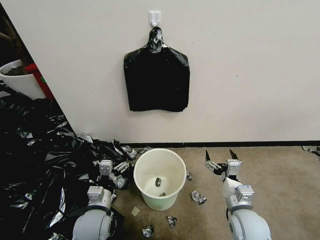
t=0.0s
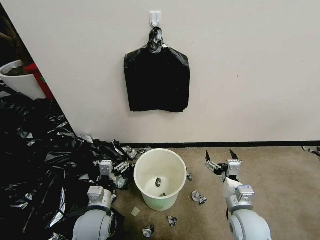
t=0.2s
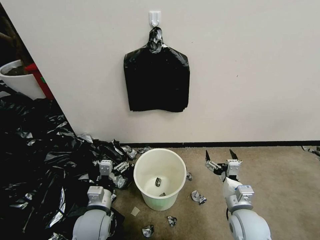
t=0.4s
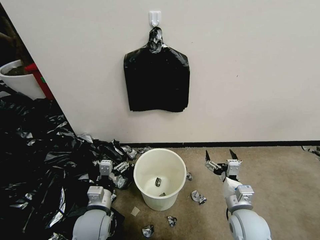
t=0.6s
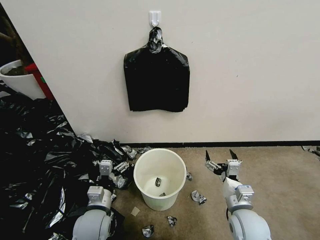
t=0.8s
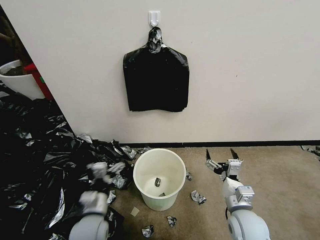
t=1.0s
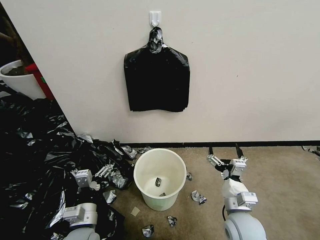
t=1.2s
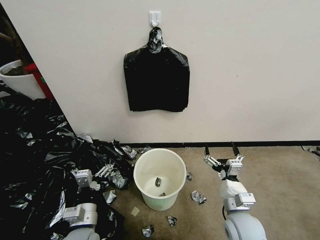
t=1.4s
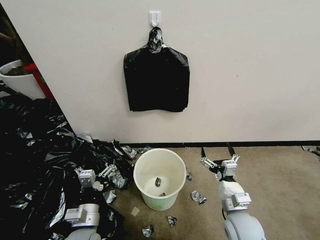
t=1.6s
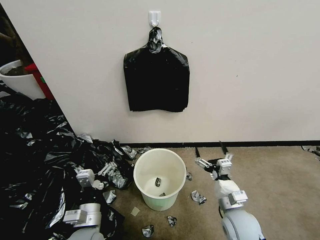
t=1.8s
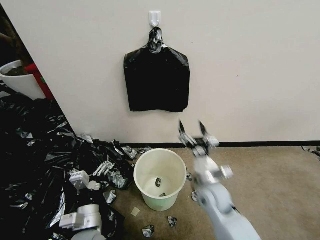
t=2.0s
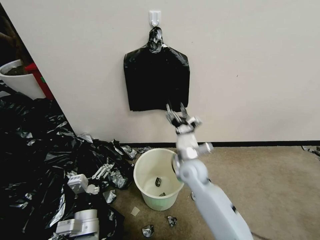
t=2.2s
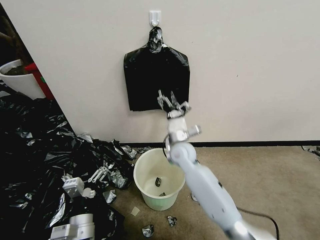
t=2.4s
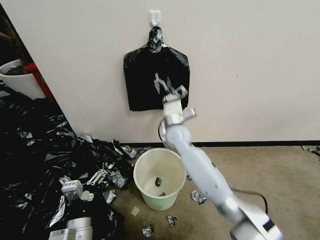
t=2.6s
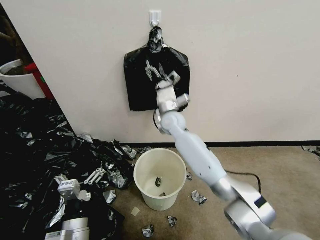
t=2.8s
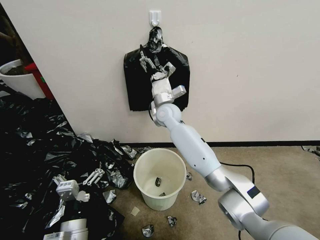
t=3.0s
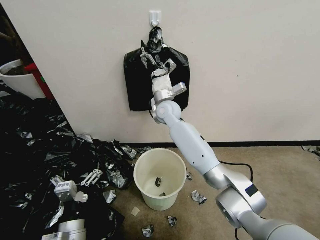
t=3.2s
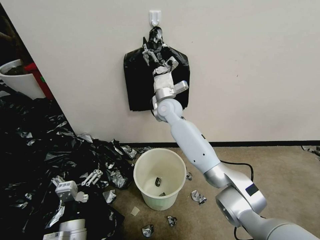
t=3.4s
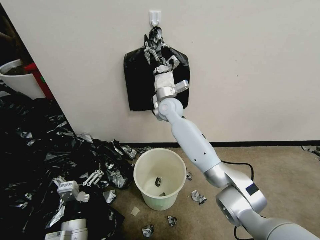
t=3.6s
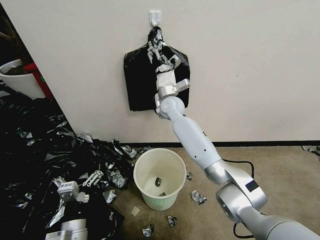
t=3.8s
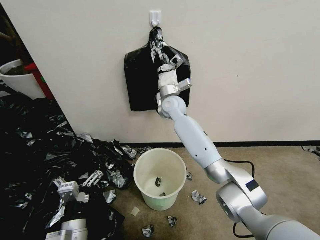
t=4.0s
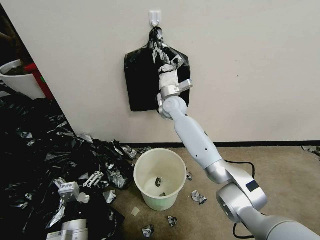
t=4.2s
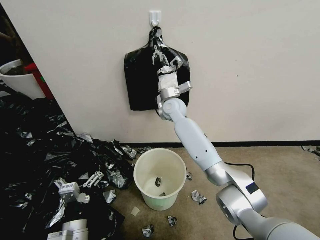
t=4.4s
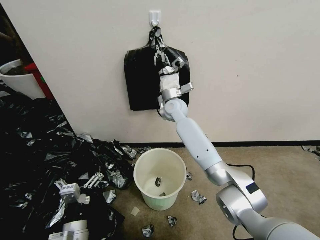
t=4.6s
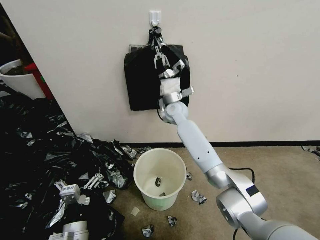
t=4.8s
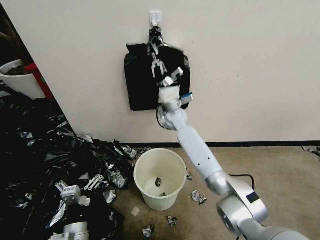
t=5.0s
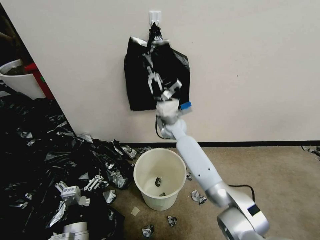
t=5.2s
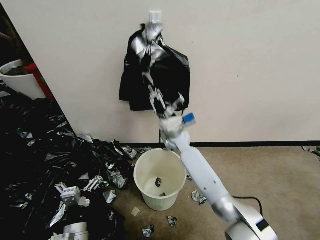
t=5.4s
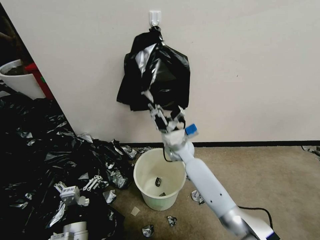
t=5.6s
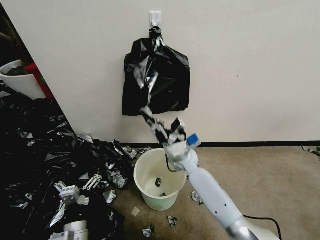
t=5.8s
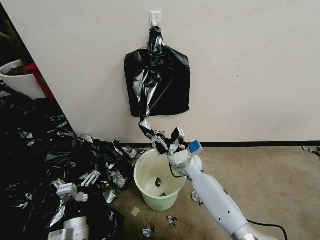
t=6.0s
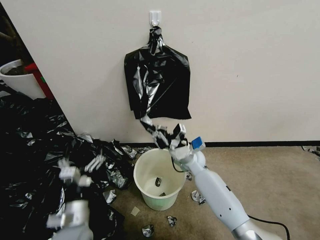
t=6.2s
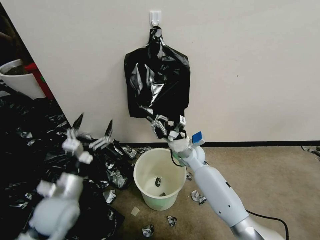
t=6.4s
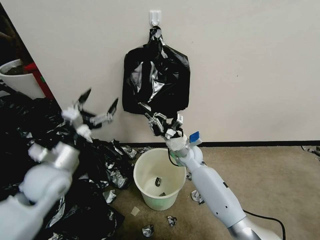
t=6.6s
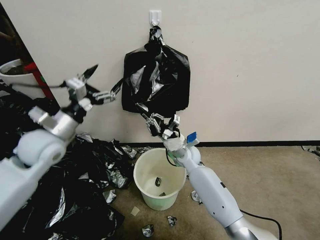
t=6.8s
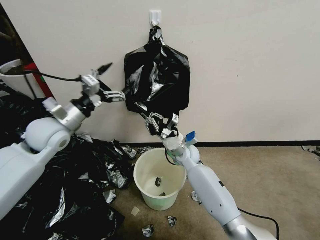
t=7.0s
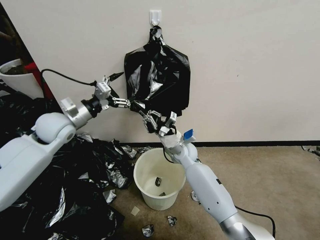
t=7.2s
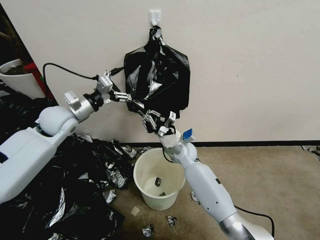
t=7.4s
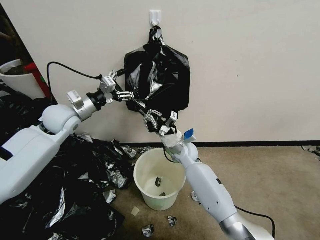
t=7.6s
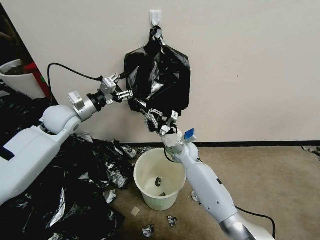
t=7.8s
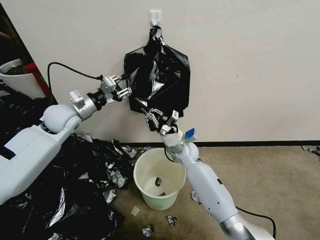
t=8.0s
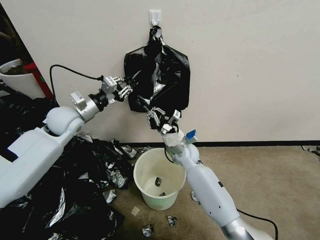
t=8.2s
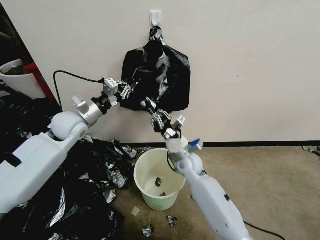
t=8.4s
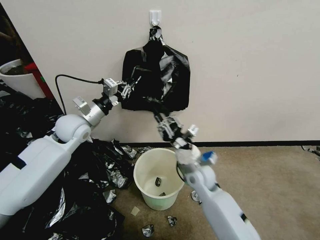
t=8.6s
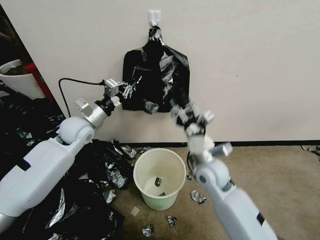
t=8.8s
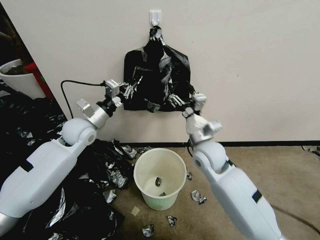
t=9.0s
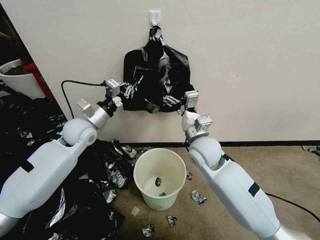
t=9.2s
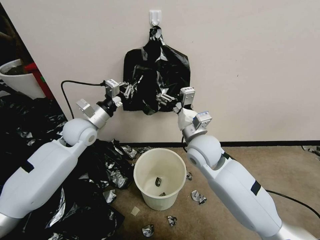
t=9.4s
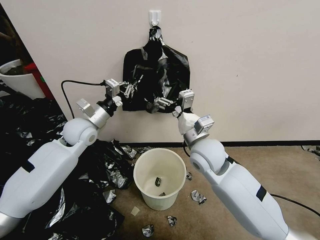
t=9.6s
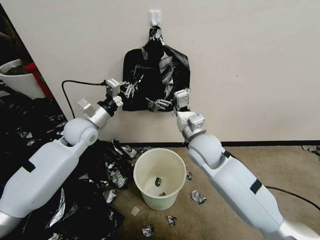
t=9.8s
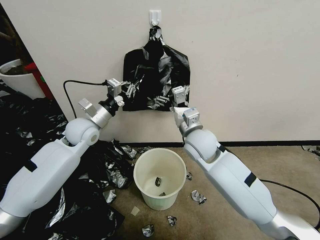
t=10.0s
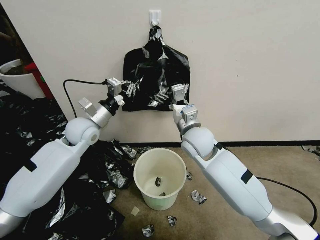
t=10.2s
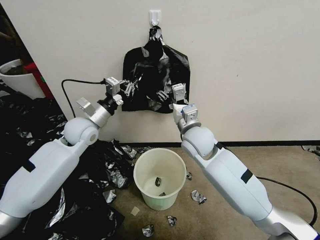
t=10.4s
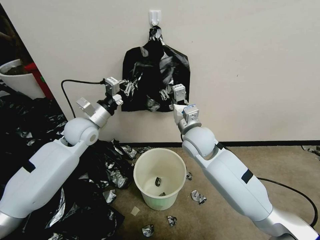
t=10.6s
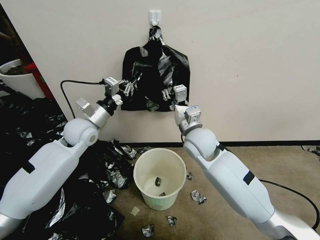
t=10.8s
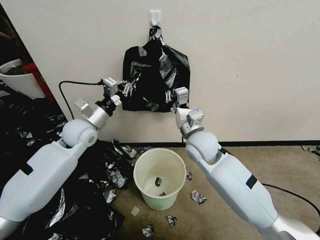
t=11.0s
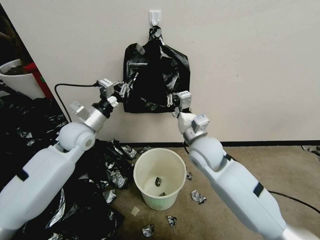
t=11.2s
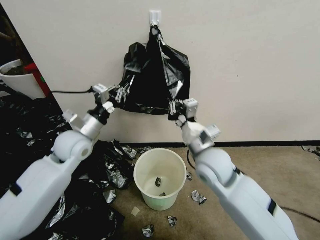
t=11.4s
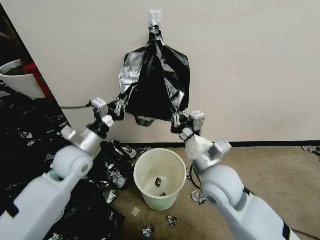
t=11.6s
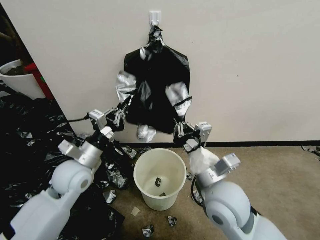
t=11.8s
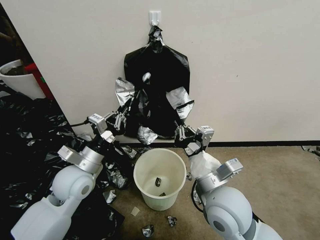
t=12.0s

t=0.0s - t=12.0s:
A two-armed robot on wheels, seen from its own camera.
Task of the whole recording: Place a trash bag onto the trash bin.
t=1.6s - t=3.0s: The left gripper changes place by about 5 cm. The right gripper goes approximately 40 cm forward, to the left and upward.
t=3.0s - t=4.4s: The right gripper closes its fingers.
t=4.4s - t=6.0s: The right gripper goes approximately 25 cm downward and backward.
t=6.0s - t=7.6s: The left gripper moves forward and upward, some 40 cm; the right gripper shifts by about 5 cm.
t=7.6s - t=9.0s: The left gripper changes place by about 5 cm, and closes its fingers; the right gripper heads upward, backward and to the right, covering about 15 cm, and opens up.
t=9.0s - t=10.4s: The right gripper ends up about 5 cm from where it was.
t=10.4s - t=12.0s: The grippers both shift backward by roughly 15 cm. The right gripper closes its fingers.

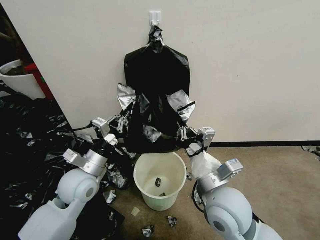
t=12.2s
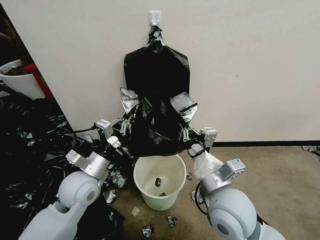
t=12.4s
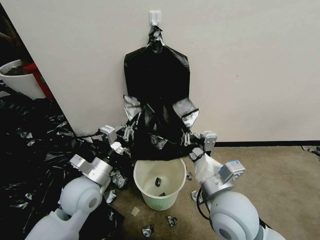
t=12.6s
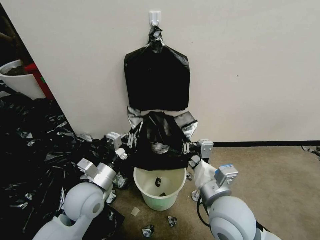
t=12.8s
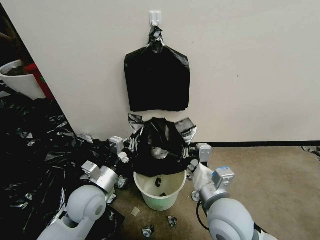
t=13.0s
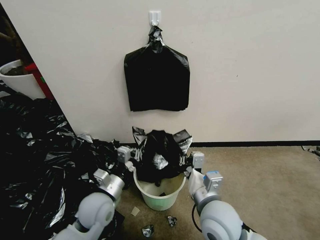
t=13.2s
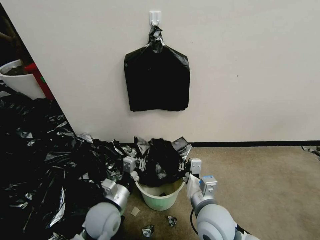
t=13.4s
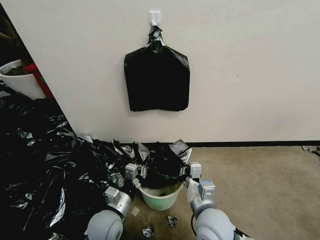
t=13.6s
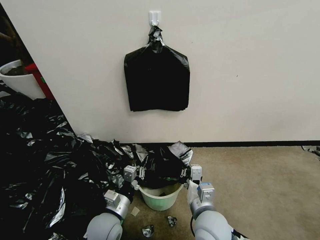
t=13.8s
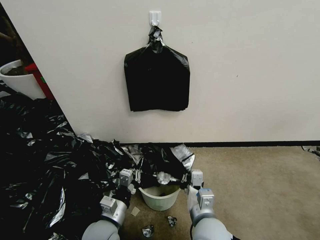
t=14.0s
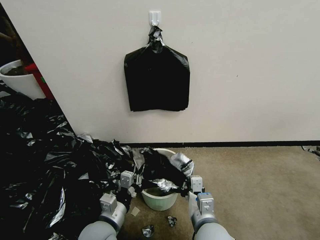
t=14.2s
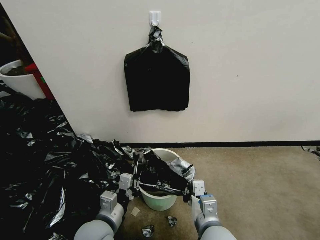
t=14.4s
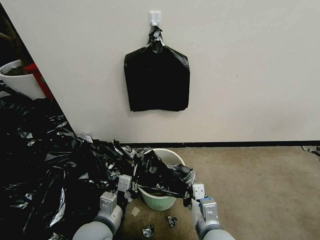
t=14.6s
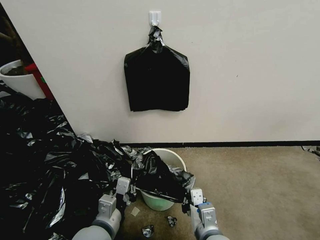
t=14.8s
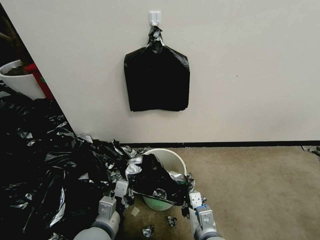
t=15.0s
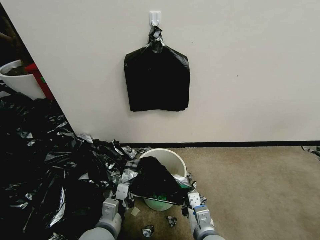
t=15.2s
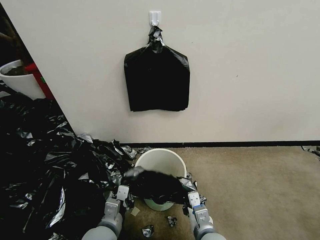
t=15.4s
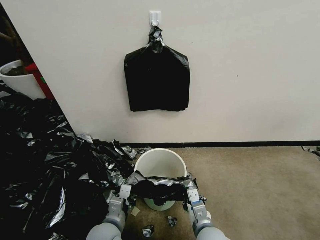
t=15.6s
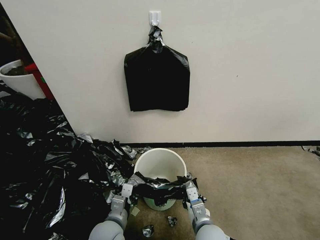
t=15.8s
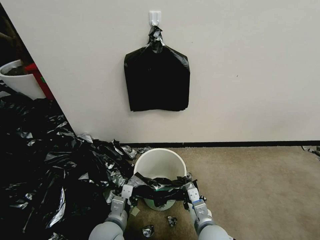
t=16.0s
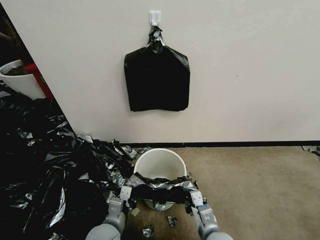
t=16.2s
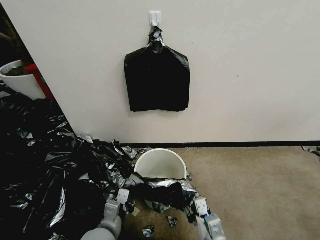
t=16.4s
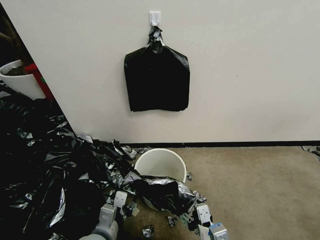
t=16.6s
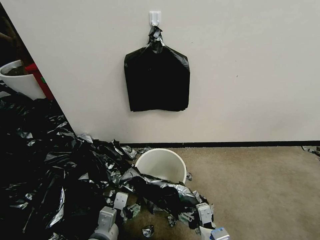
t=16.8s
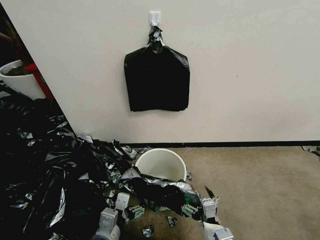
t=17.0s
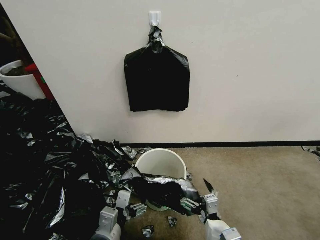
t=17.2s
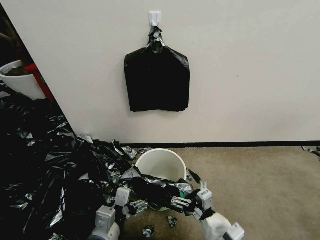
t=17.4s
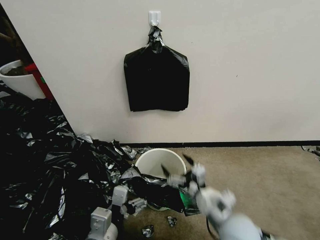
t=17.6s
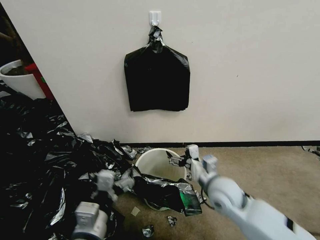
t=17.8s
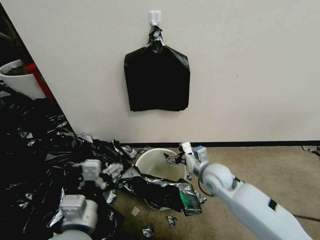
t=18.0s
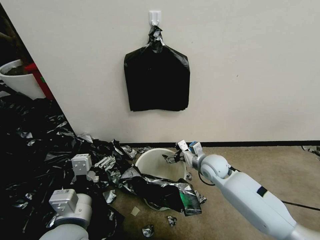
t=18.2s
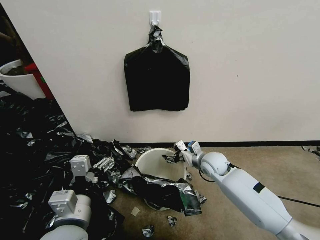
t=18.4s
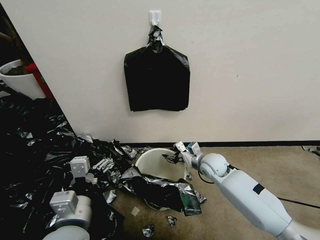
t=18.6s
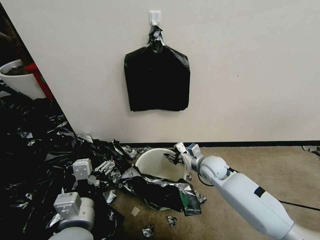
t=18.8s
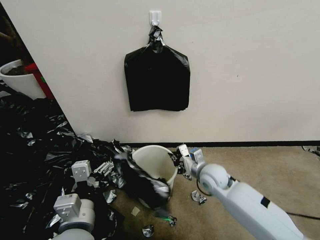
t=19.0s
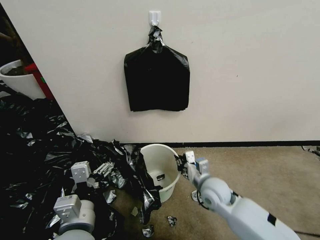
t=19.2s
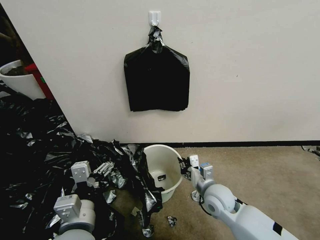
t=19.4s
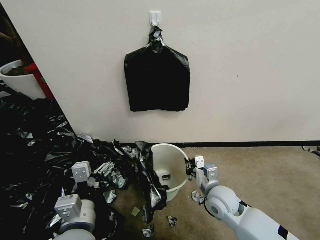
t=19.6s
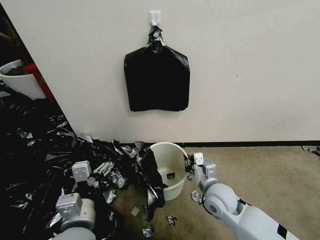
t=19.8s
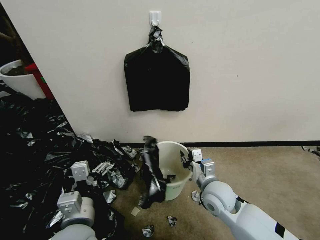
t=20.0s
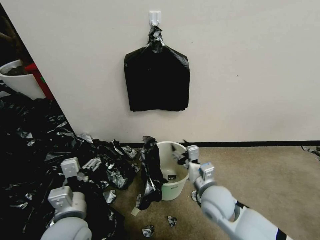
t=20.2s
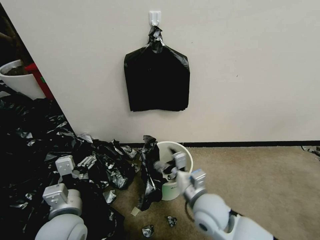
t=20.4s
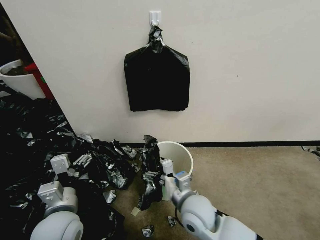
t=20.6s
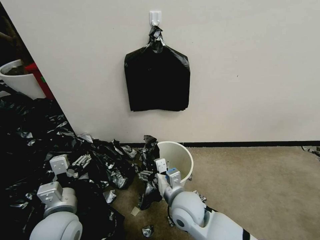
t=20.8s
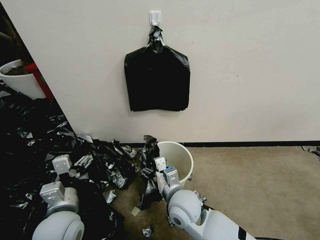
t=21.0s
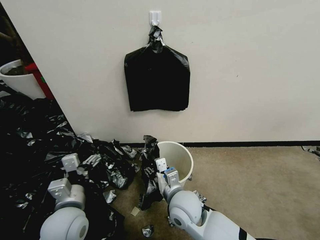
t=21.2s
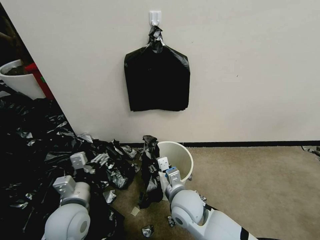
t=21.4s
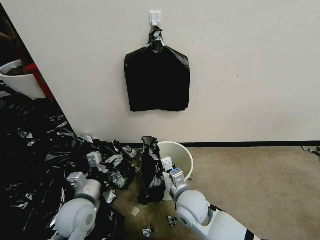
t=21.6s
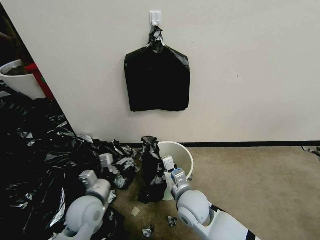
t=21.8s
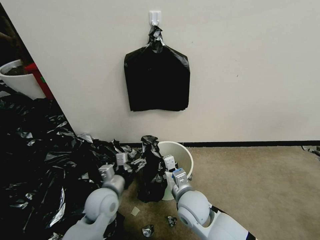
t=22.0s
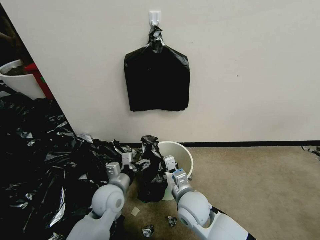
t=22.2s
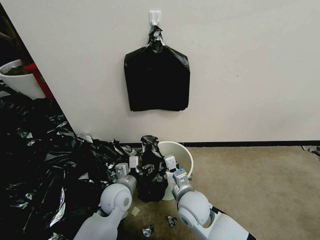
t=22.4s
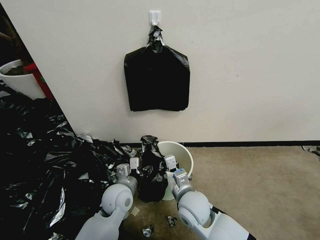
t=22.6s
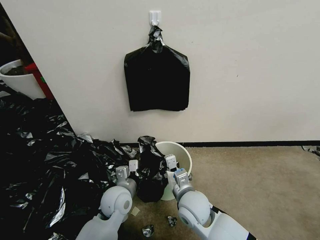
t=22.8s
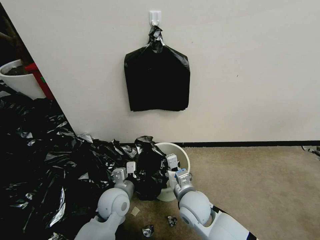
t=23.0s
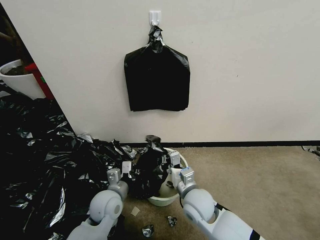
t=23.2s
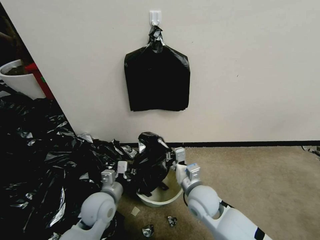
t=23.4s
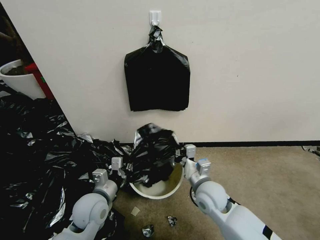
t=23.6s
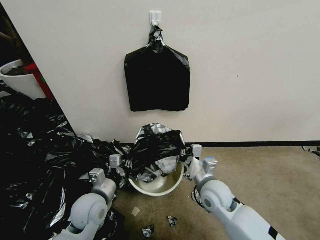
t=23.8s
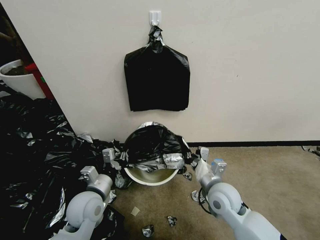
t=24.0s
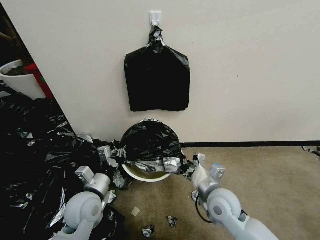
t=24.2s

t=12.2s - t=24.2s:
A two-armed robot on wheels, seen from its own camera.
Task of the whole recording: Place a trash bag onto the trash bin.
t=12.2s - t=13.8s: The left gripper moves downward, backward and to the right, some 15 cm. Meanwhile the right gripper heads downward, covering some 10 cm.
t=13.8s - t=15.2s: The right gripper is displaced backward by some 5 cm.
t=15.2s - t=16.6s: The right gripper moves about 5 cm, and opens its fingers. The left gripper opens up.
t=16.6s - t=18.2s: The right gripper is displaced forward by some 30 cm; the left gripper shifts some 10 cm upward, and opens its fingers.
t=18.2s - t=19.8s: The right gripper is displaced backward by about 10 cm, and closes.
t=19.8s - t=21.2s: The left gripper goes roughly 5 cm to the left; the right gripper is displaced to the left by about 10 cm, and opens.
t=21.2s - t=22.6s: The right gripper closes; the left gripper heads to the right, forward and downward, covering about 15 cm.
t=22.6s - t=24.2s: The left gripper is displaced to the left by about 10 cm, and closes. Meanwhile the right gripper goes approximately 10 cm to the right.
